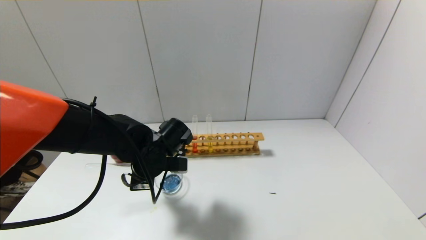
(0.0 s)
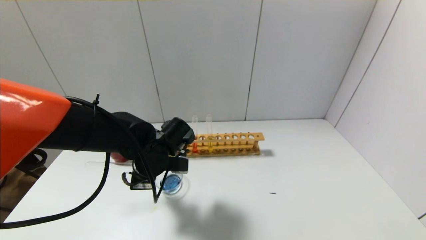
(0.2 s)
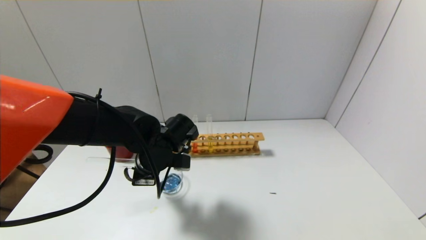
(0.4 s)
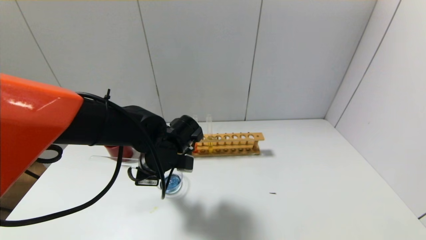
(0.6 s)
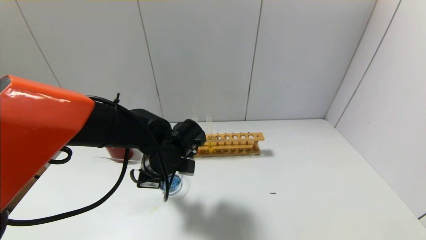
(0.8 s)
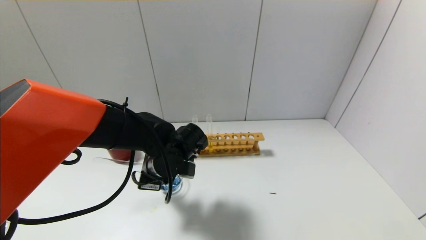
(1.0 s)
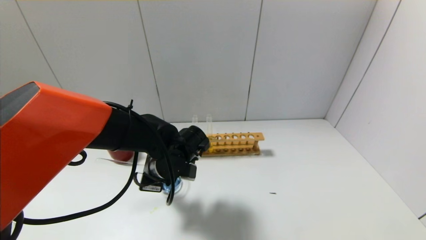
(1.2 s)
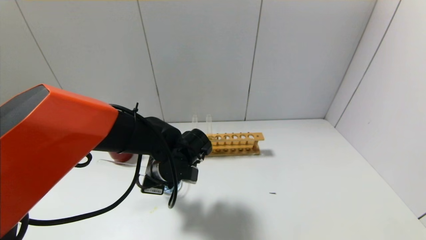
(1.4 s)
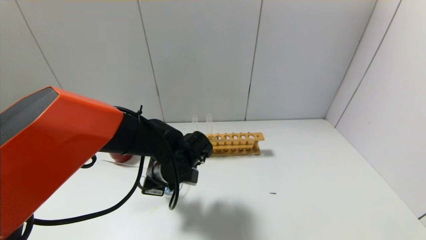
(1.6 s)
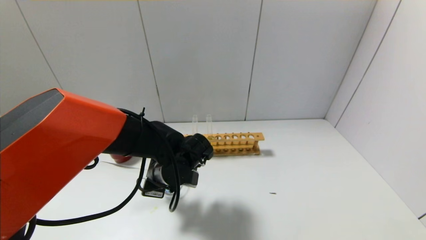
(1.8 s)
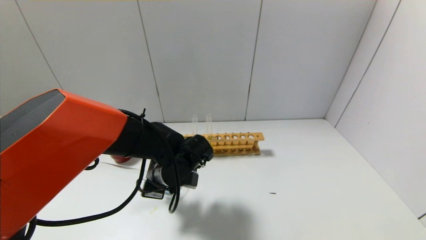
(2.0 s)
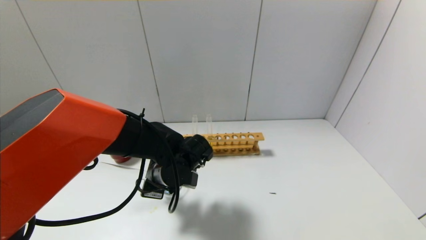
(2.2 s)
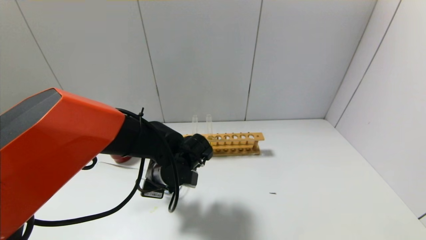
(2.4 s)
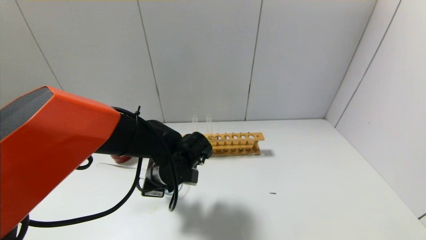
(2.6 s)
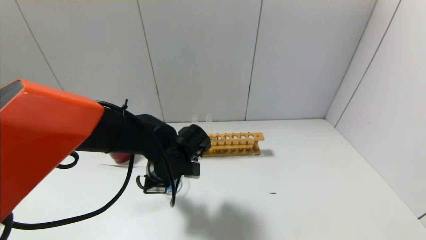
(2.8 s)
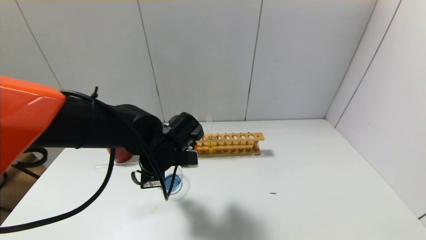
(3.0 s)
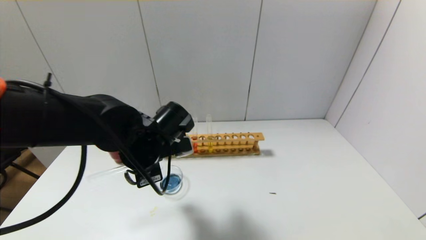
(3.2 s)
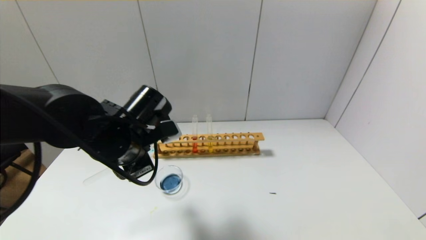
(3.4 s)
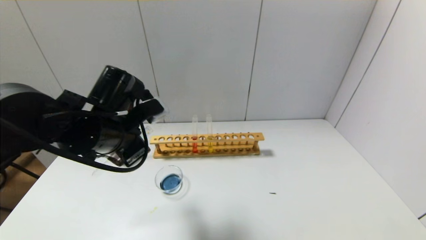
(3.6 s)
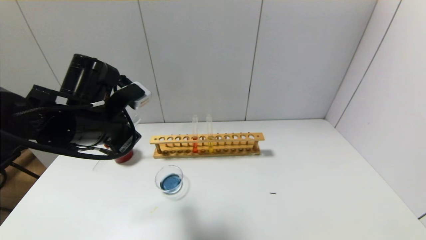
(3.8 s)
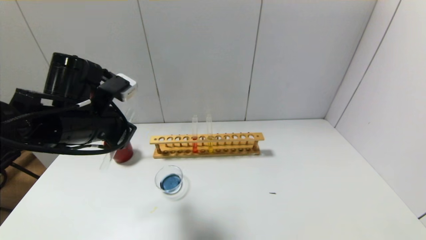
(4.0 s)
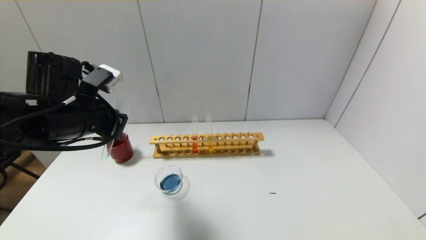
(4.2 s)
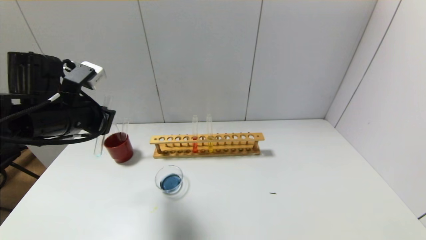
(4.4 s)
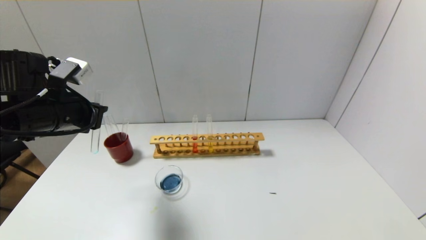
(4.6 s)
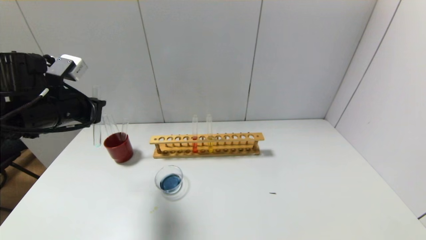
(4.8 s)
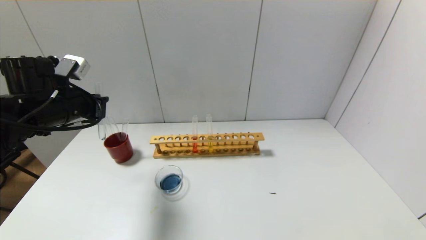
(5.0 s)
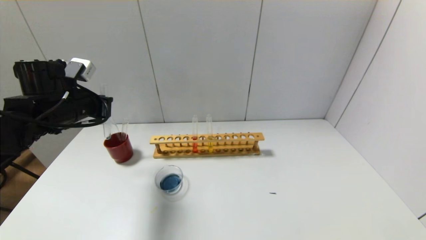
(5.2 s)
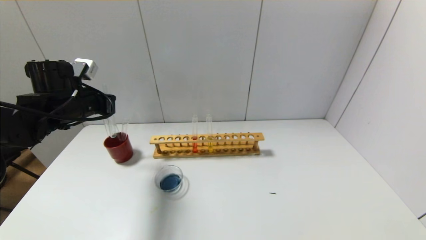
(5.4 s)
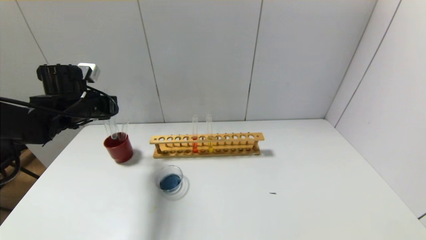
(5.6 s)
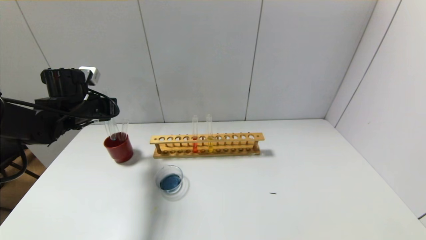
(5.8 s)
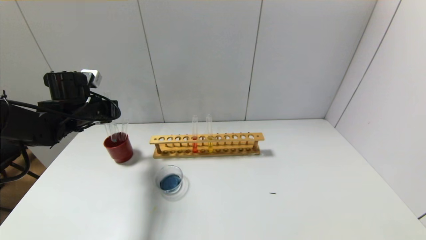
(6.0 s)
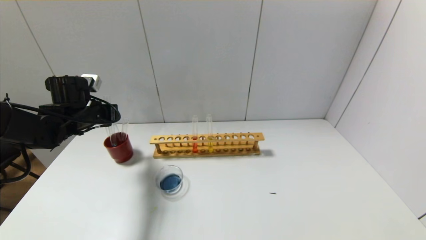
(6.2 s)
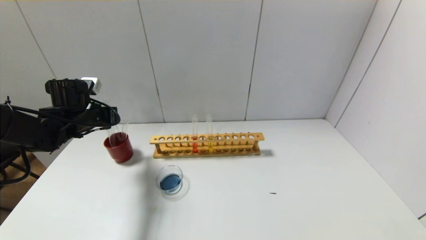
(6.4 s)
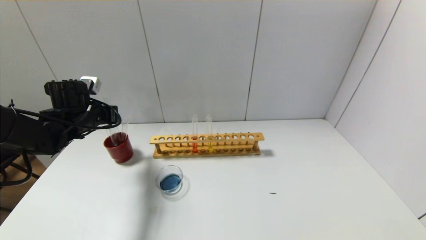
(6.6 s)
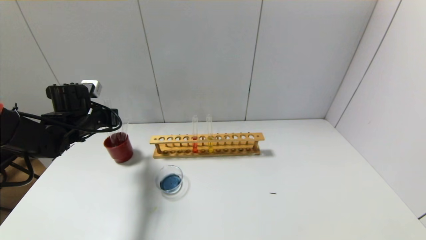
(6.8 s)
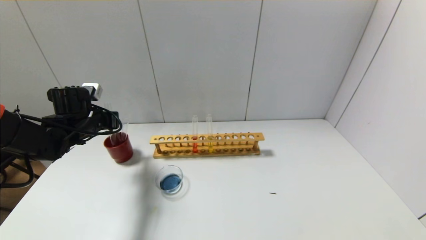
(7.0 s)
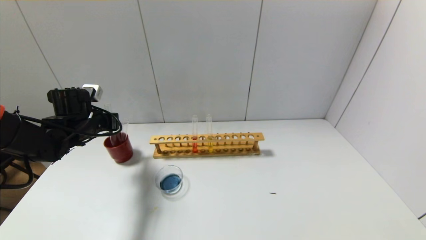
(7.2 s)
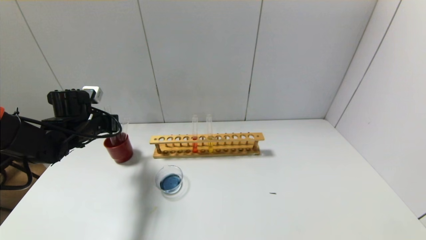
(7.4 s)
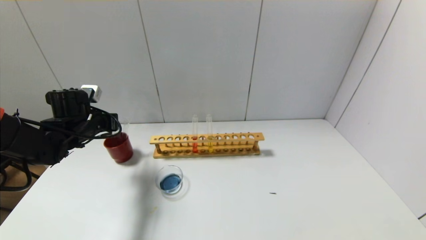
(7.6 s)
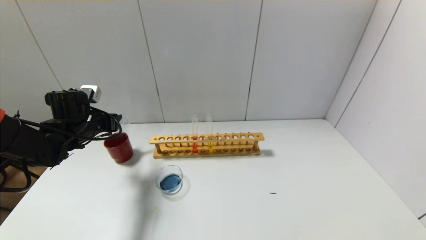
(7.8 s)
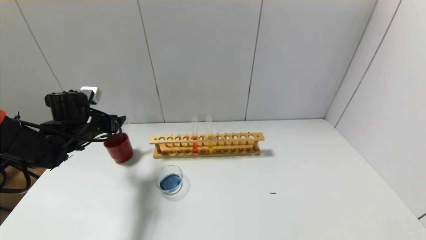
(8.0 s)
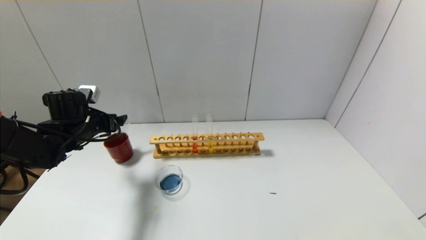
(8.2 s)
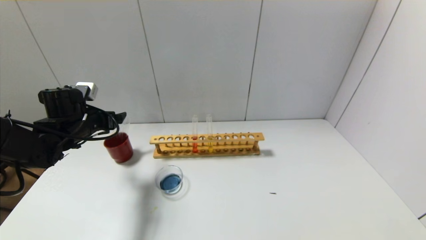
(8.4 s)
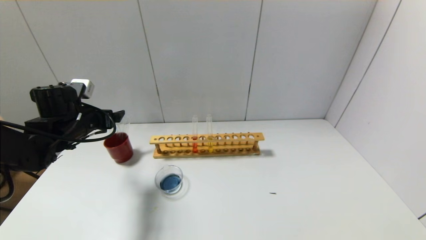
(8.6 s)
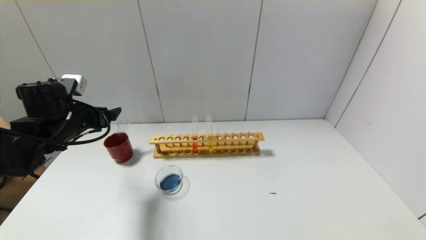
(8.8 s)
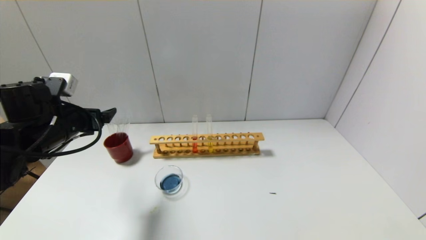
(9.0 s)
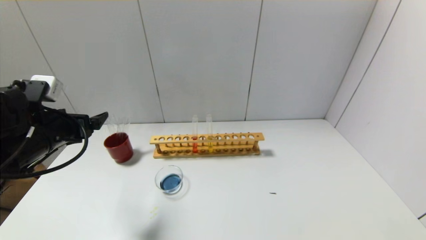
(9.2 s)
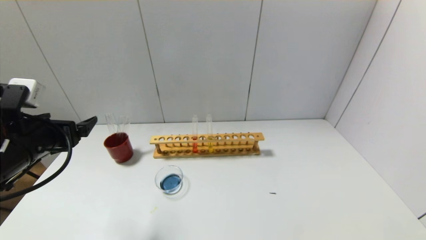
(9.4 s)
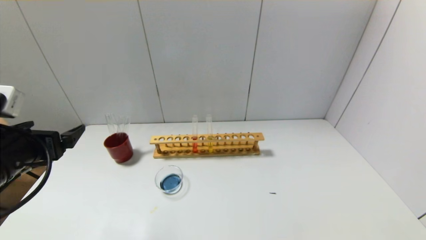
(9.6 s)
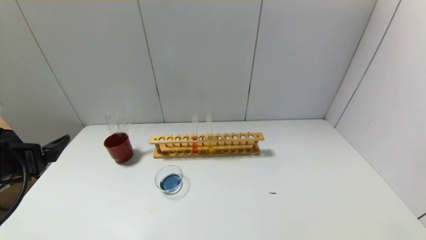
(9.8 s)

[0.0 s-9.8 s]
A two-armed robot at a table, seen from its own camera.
Step, 0.0 to 3.0 s: Pour the blue reagent into the graduated cylinder with the left gripper.
Step, 3.2 to 7.6 s: Place the test tube into the brown cup with the left gripper.
0.0 to 2.8 s: The grippers move only a little.
2.8 to 4.2 s: The left gripper travels to the left and upward by approximately 20 cm.
4.2 to 5.6 s: The left gripper heads forward and to the left, covering about 10 cm.
5.6 to 7.0 s: The left gripper shifts by roughly 5 cm.
7.0 to 8.4 s: The left gripper opens.
8.4 to 9.8 s: The left gripper moves backward, some 20 cm.

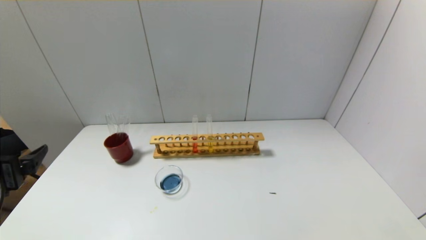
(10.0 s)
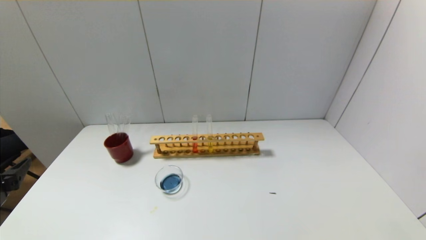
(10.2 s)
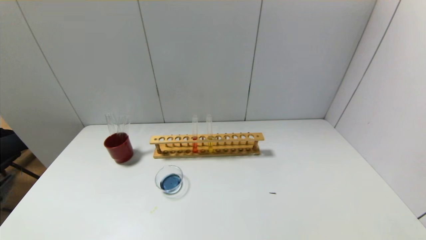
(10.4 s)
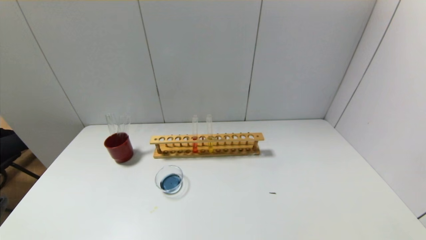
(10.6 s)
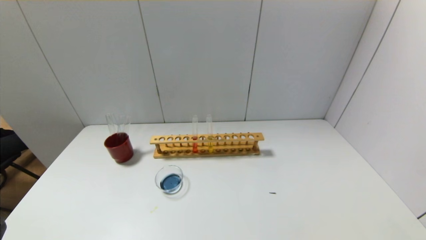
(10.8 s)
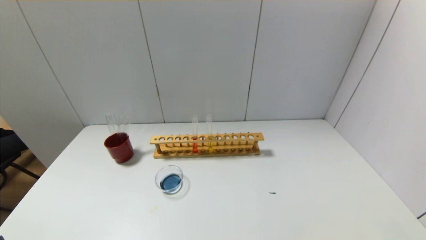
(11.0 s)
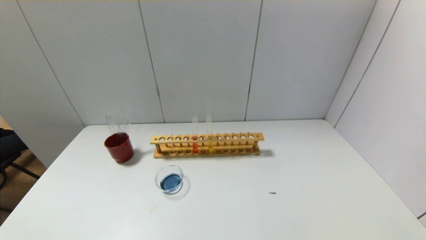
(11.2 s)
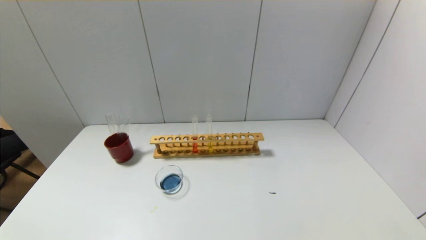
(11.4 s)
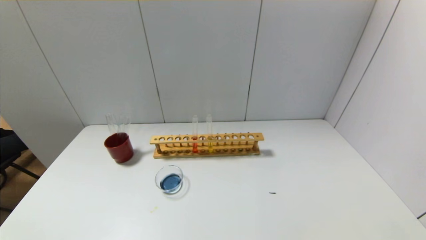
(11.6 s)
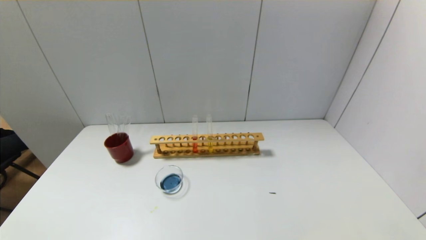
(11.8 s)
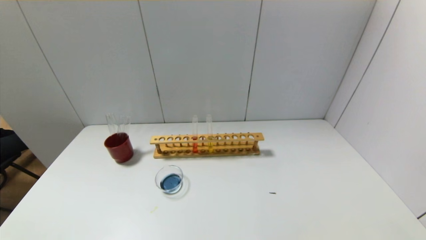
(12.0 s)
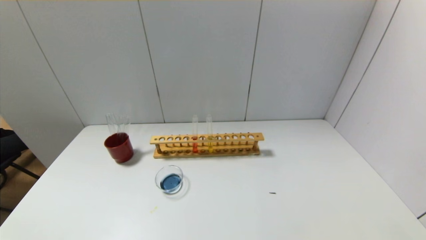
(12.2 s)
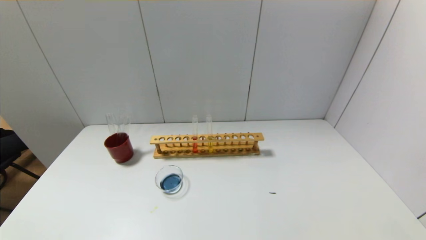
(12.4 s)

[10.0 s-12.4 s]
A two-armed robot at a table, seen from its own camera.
10.0 to 11.2 s: The left gripper is displaced backward and downward by approximately 20 cm.

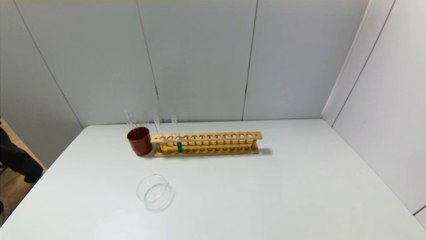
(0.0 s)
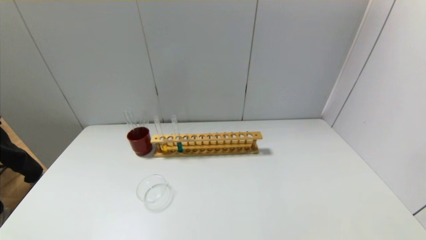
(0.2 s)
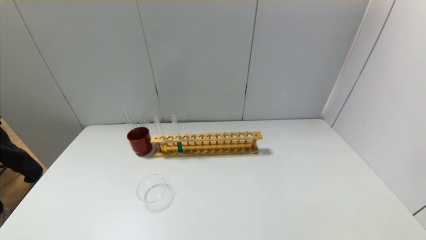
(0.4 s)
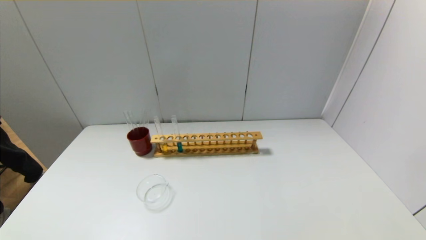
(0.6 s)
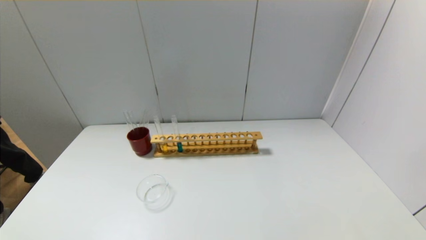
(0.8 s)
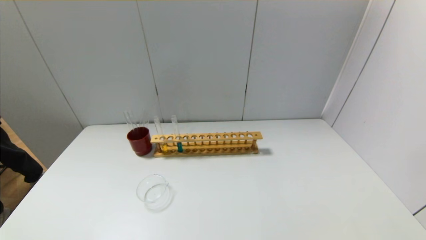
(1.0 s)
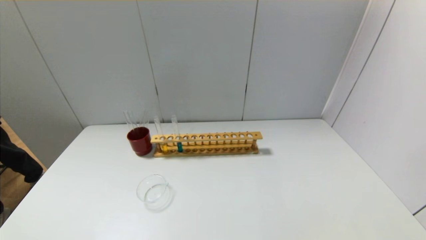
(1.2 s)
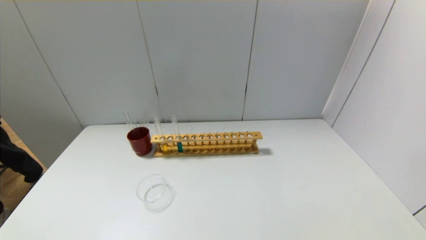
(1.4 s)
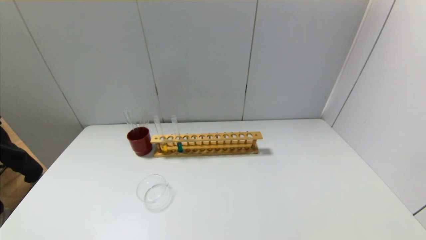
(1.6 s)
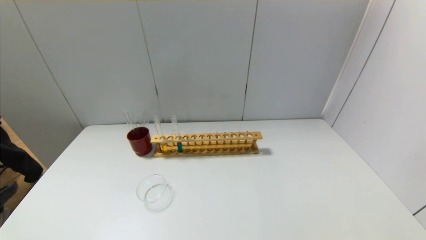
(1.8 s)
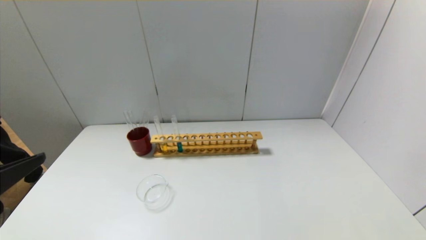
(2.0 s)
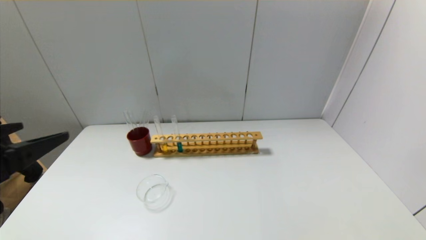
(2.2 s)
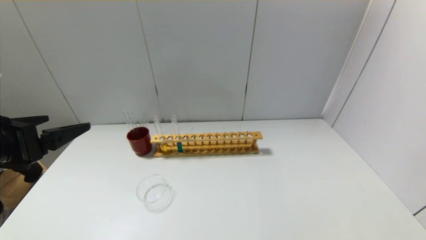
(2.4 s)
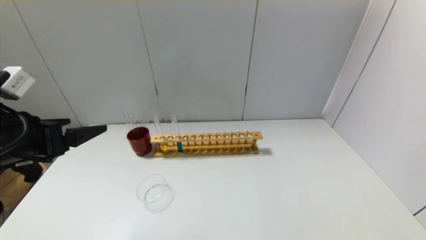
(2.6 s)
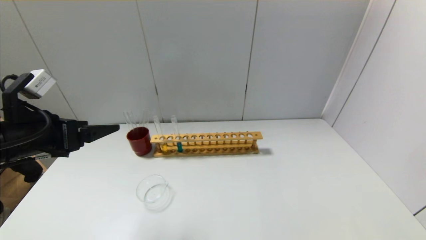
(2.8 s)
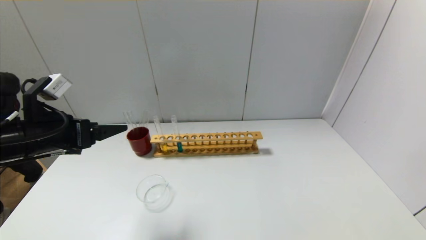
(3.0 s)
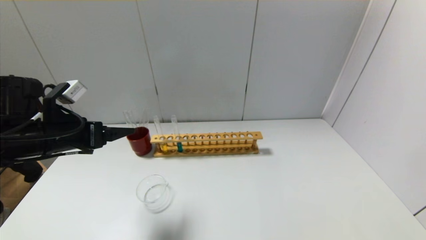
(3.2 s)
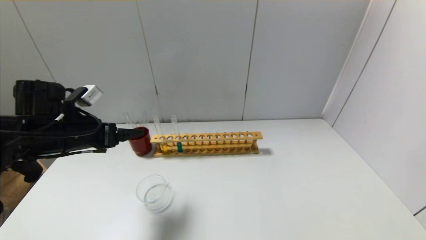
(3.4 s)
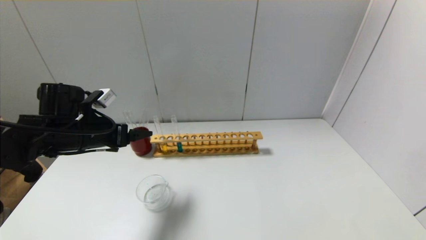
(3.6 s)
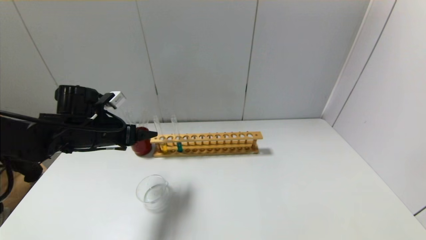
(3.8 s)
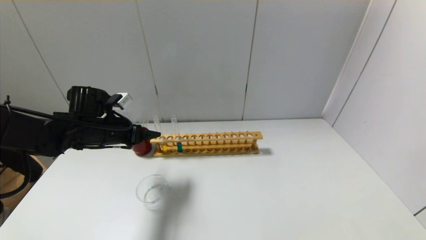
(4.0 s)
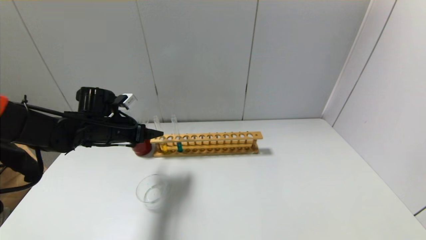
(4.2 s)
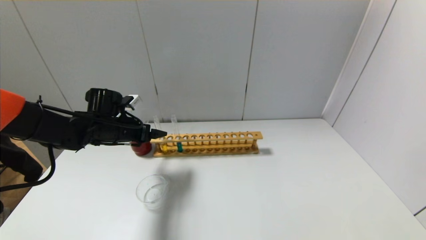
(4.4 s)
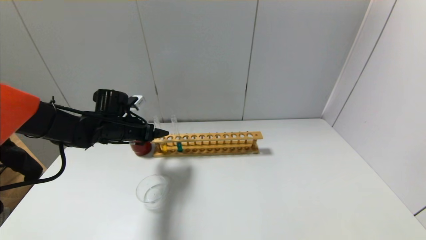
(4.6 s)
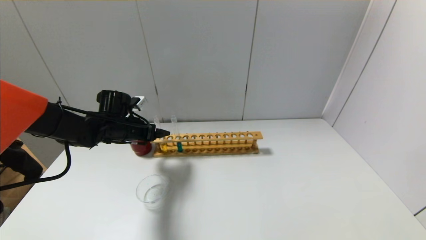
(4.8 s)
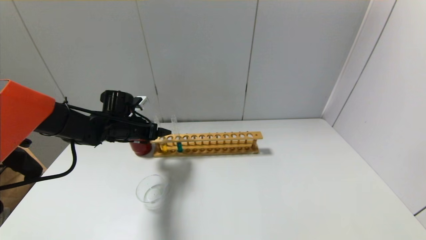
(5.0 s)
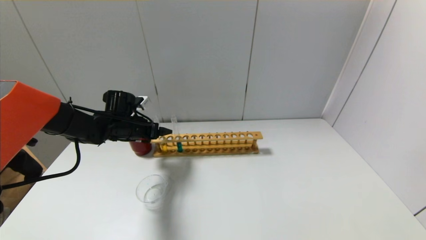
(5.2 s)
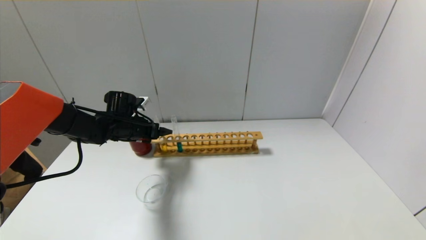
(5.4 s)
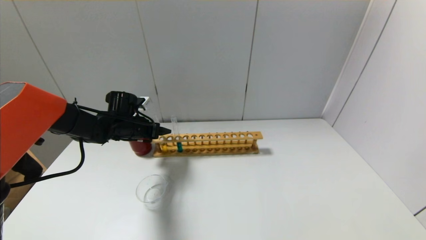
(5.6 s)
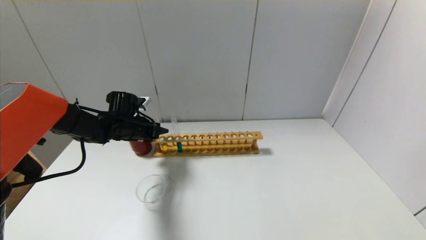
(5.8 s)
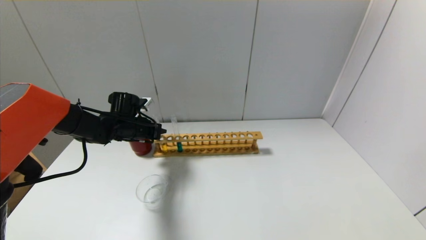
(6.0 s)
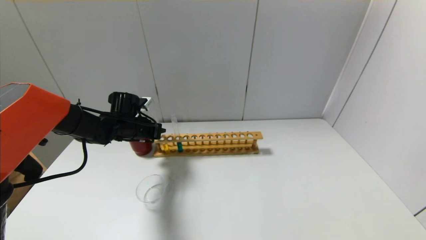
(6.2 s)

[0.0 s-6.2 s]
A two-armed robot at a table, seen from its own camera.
Step, 0.0 to 6.2 s: Grasp the yellow reagent with the left gripper.
1.6 to 3.2 s: The left gripper moves forward, roughly 25 cm.
3.2 to 4.6 s: The left gripper shifts about 15 cm forward and downward.
4.6 to 6.2 s: The left gripper closes.
